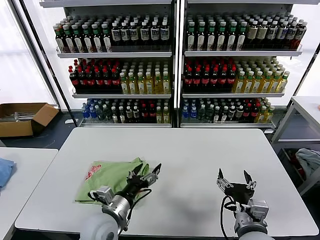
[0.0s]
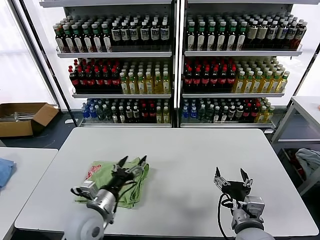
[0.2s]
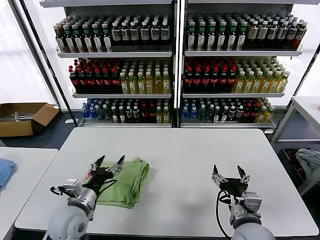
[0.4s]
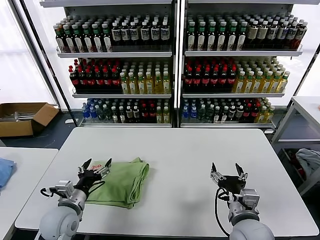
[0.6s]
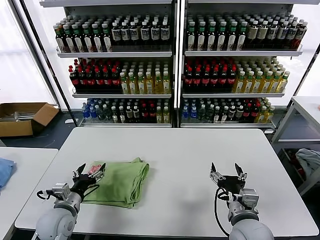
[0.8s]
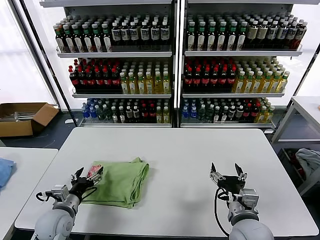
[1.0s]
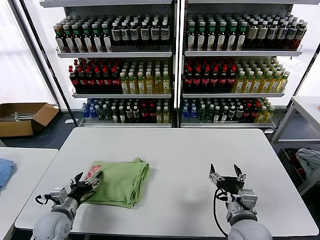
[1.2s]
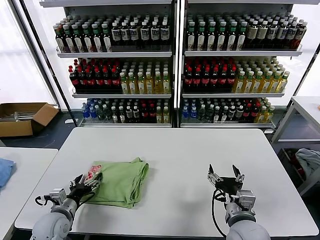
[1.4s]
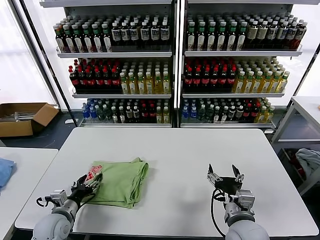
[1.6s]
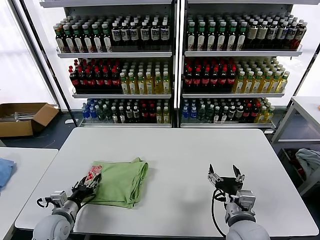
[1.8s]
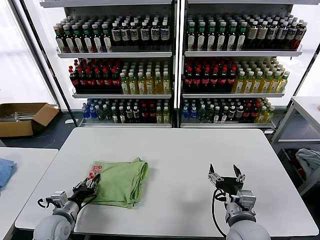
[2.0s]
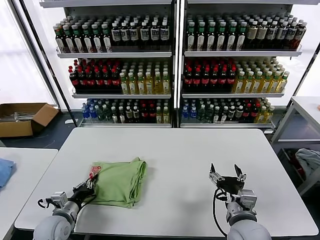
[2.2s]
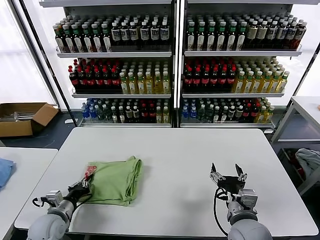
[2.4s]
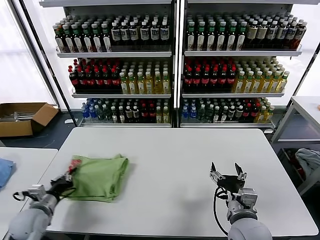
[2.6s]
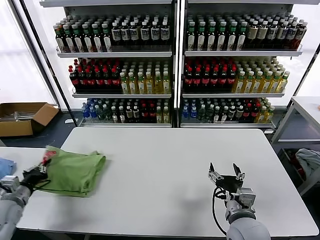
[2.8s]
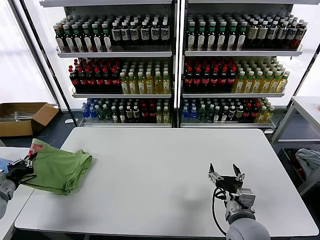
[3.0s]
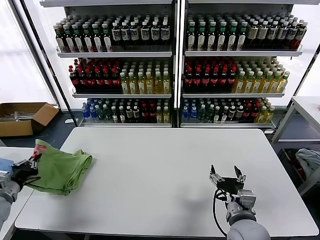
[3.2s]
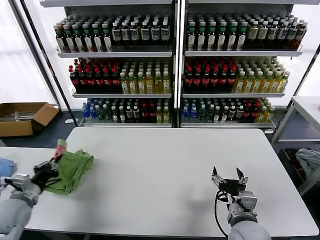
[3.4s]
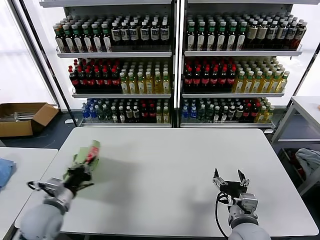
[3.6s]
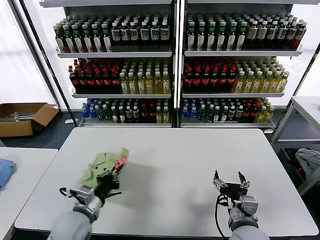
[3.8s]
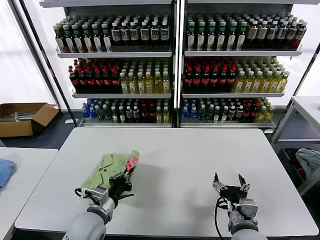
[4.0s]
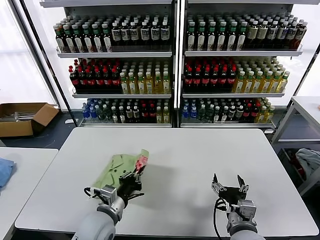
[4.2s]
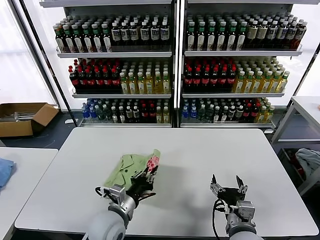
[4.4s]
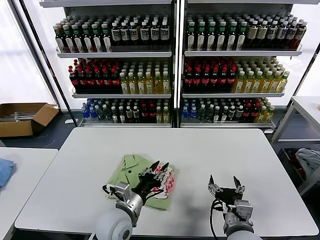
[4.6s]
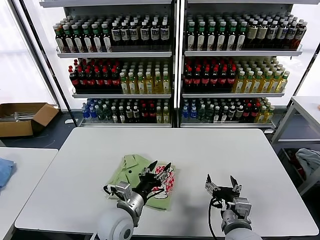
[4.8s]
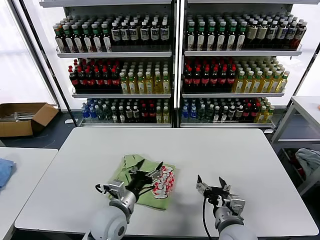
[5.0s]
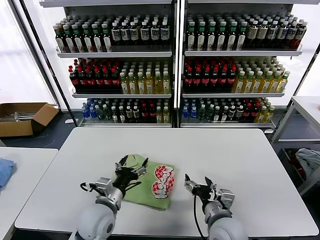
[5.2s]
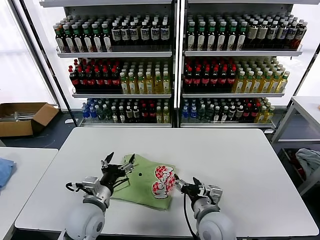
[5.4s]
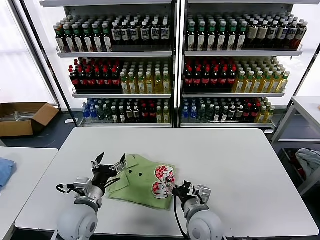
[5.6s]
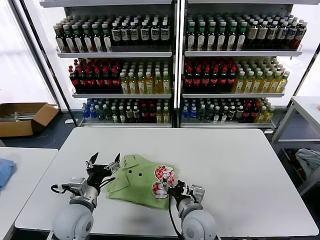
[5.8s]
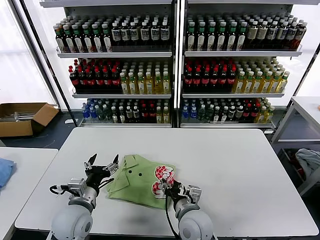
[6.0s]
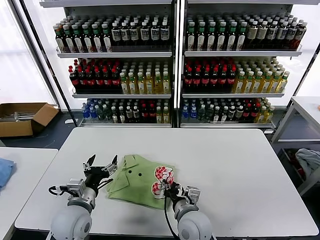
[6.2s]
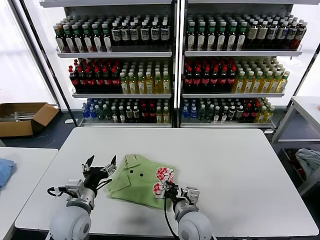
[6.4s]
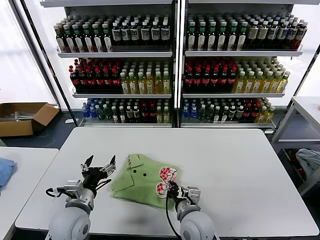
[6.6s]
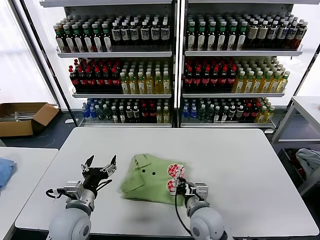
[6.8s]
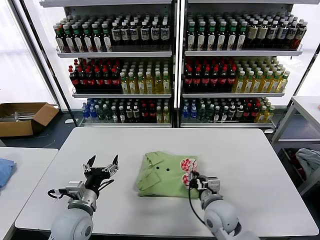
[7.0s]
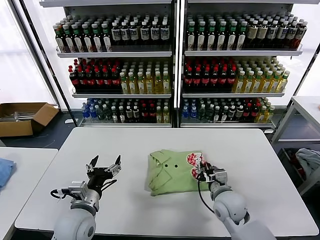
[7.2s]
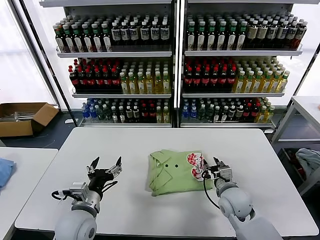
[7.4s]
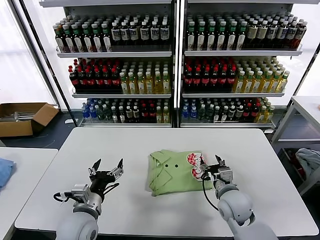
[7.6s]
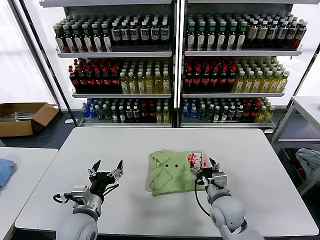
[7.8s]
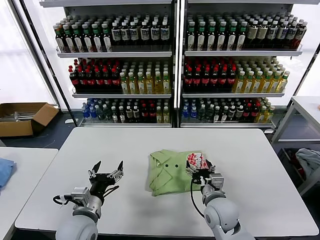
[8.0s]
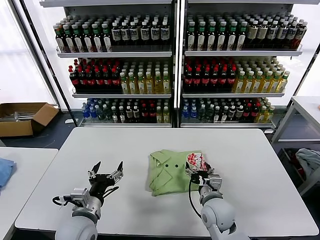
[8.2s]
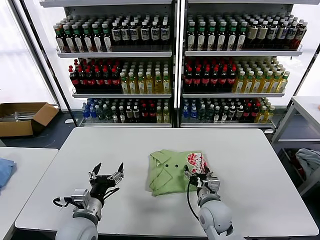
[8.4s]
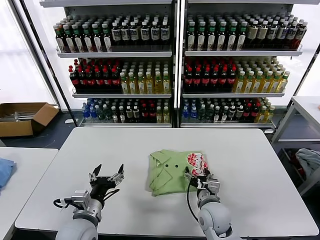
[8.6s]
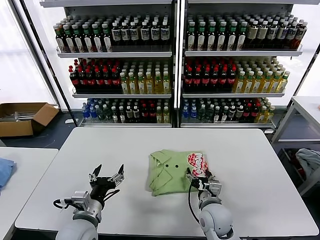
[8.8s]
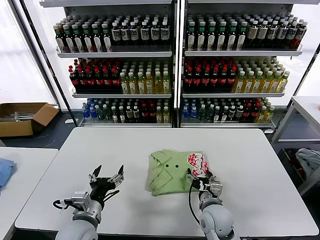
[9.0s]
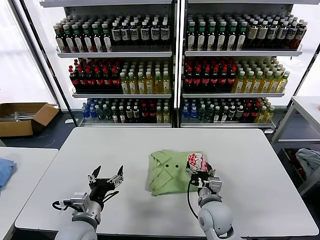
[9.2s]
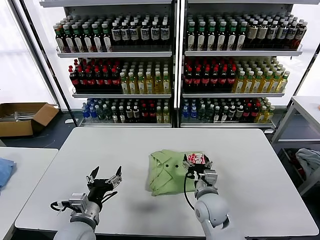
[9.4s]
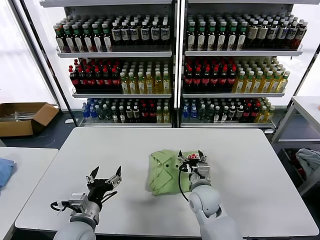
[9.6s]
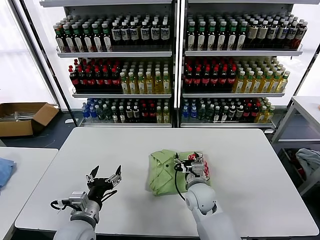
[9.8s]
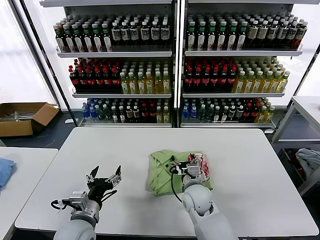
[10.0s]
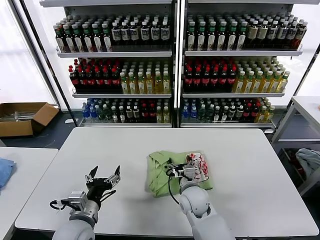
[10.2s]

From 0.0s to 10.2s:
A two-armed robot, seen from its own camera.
Task of the whole recording: fold and organize the clothes.
Step, from 0.0s to 4.6s: Flip the folded clothes over with left gripper.
From 0.0s to 1.4s: The left gripper is displaced to the left by about 20 cm.
From 1.4s to 3.0s: The left gripper is displaced to the left and upward by roughly 20 cm, and closes up.
From 3.0s to 4.4s: The left gripper is displaced to the right by approximately 35 cm.
From 4.4s to 5.8s: The right gripper heads to the left and forward, covering about 15 cm, while the left gripper heads to the left, covering approximately 10 cm, and opens.
From 5.8s to 7.2s: The right gripper is displaced to the right and forward by roughly 10 cm, and closes its fingers.
From 7.2s to 8.8s: The right gripper changes place by about 5 cm, and opens.
From 8.8s to 10.2s: The right gripper goes some 10 cm to the left and forward.

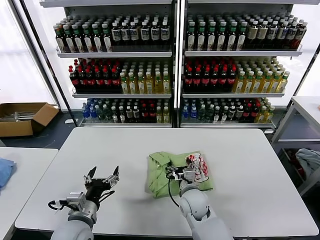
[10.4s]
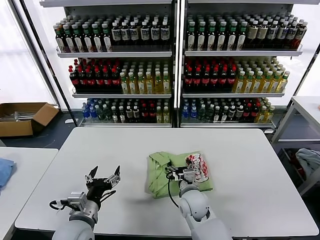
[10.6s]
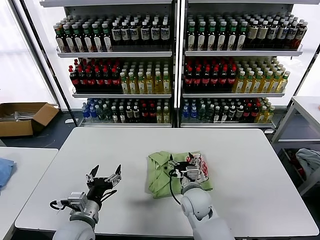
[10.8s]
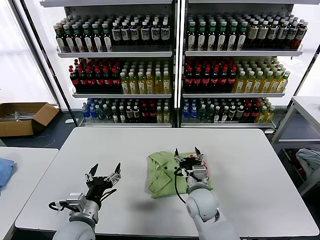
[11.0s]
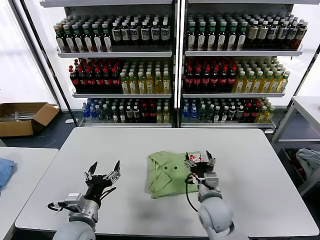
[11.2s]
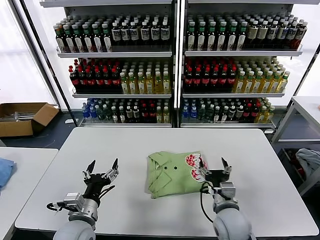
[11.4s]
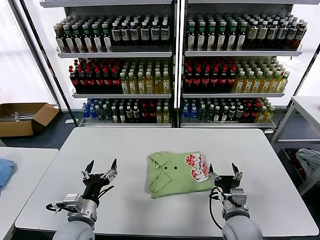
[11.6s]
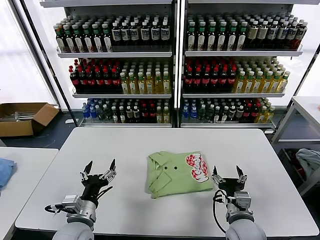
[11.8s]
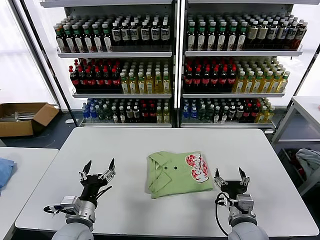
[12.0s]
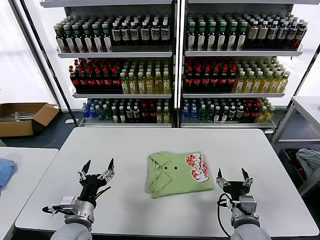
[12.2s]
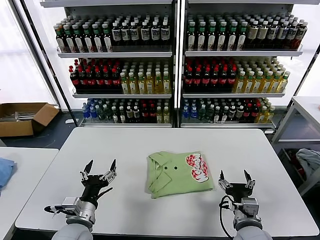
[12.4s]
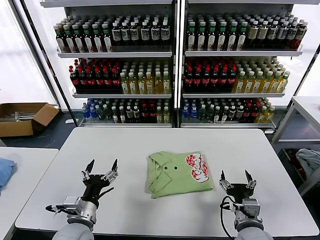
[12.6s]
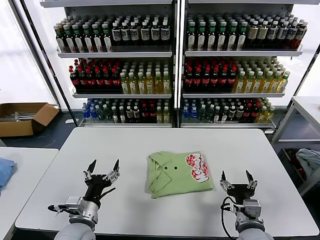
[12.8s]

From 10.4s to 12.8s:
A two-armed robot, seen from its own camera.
Task of the whole recording: fold and organize the clothes.
From 10.4s to 11.6s: The right gripper goes about 15 cm to the right and backward.
From 11.6s to 12.8s: The right gripper moves about 5 cm.
